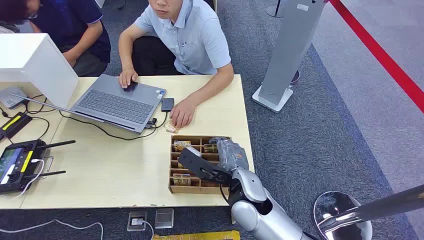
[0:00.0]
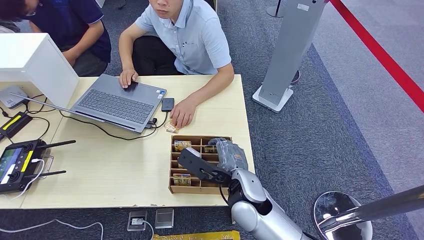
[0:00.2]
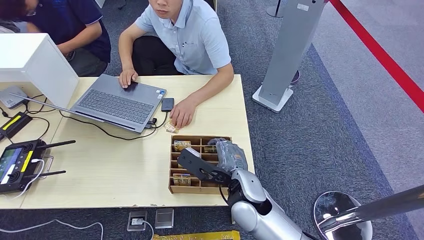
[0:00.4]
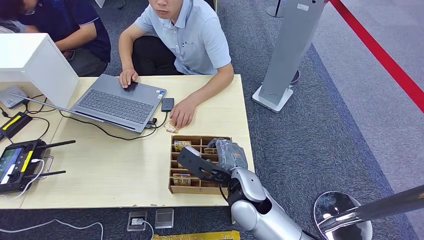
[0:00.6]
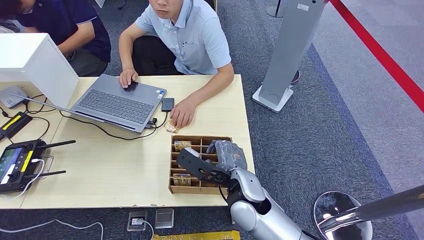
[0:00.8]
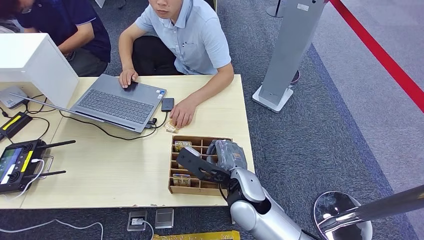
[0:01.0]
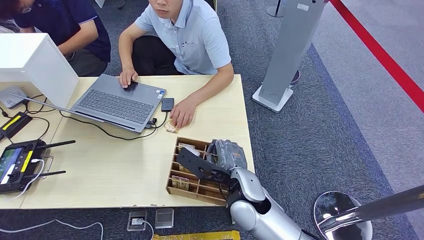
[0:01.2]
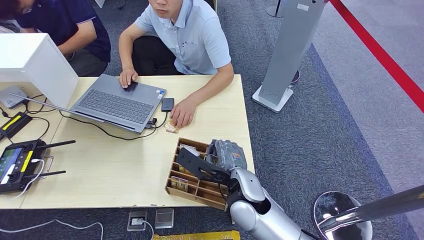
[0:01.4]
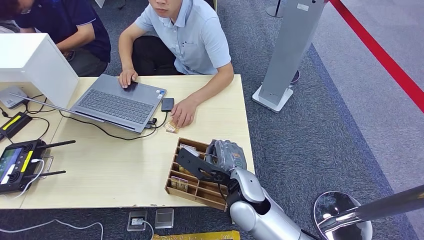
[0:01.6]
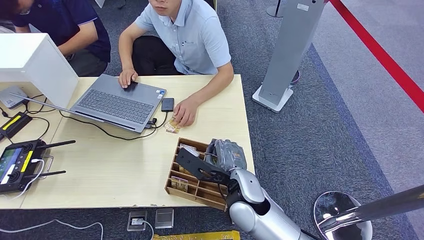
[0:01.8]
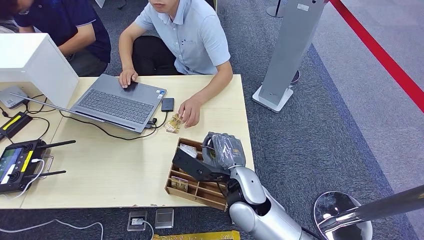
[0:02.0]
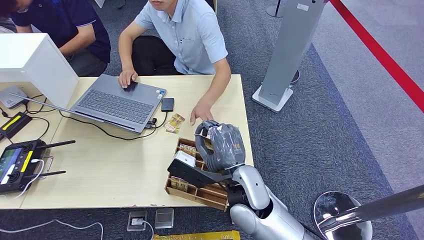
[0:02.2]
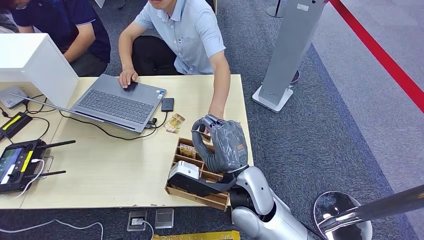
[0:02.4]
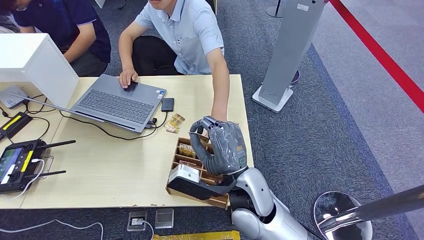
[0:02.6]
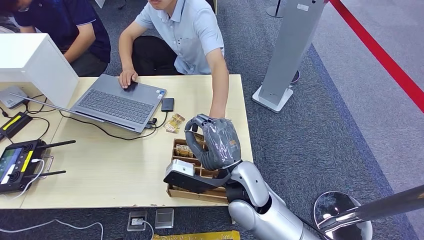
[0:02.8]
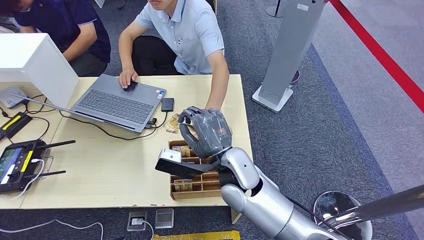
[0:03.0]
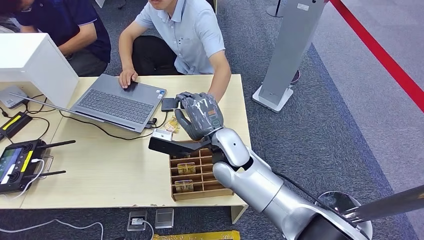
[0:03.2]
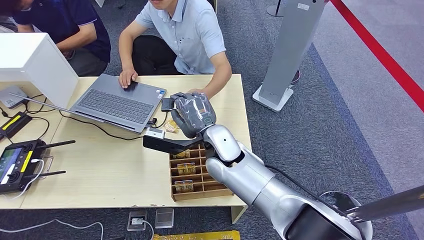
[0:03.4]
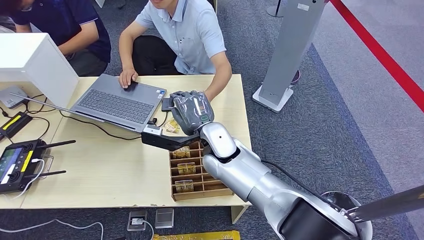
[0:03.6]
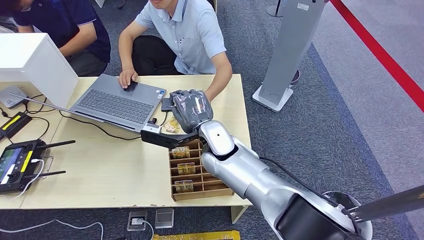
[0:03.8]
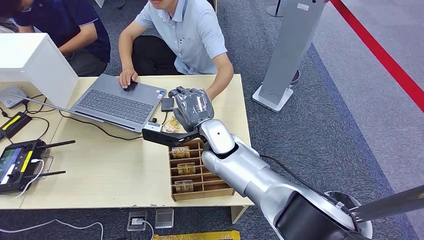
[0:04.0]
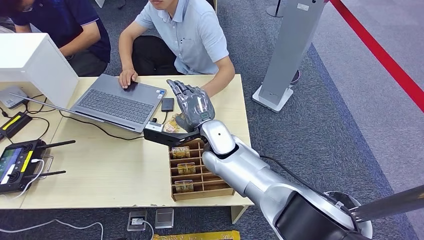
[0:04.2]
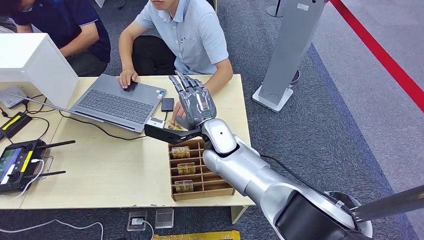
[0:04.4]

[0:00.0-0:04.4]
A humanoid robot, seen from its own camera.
Step, 0:00.0 to 0:02.2: Pick up the key card from the card box.
Step, 0:02.6 to 0:04.4: Hand the key card to the target.
0:01.4 to 0:03.0: The right hand shifts by some 5 cm.
0:03.0 to 0:04.4: The right hand travels forward by some 10 cm.
